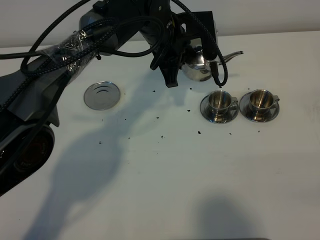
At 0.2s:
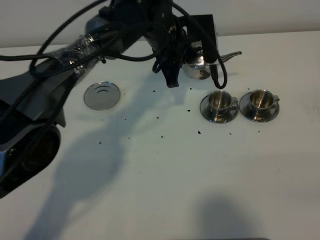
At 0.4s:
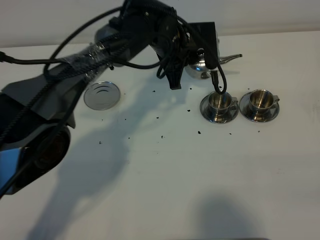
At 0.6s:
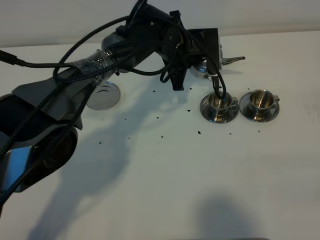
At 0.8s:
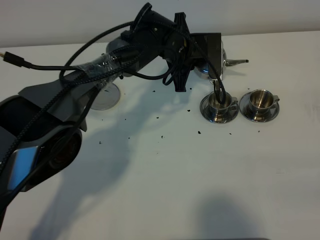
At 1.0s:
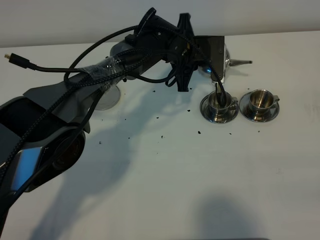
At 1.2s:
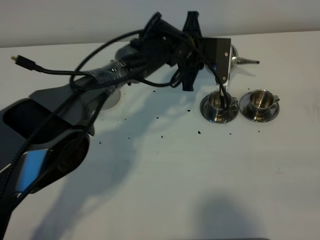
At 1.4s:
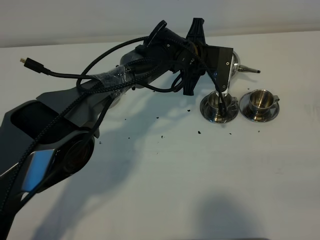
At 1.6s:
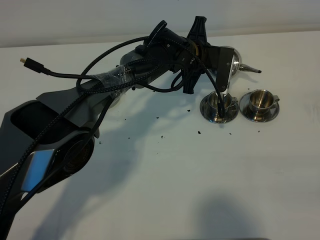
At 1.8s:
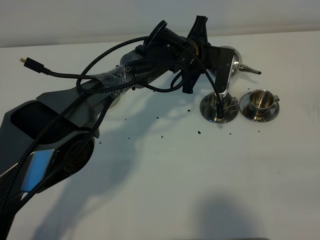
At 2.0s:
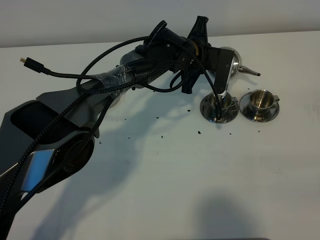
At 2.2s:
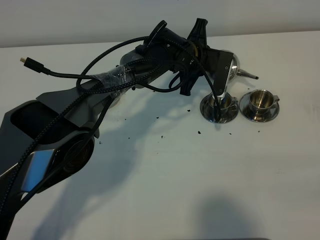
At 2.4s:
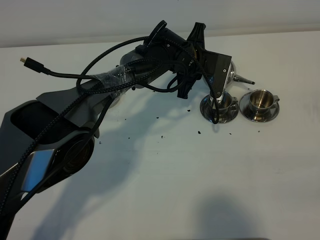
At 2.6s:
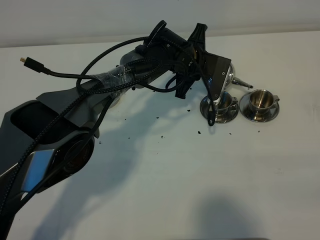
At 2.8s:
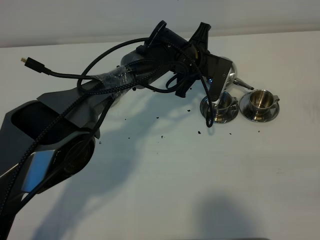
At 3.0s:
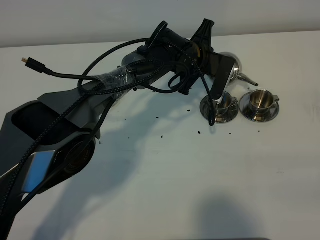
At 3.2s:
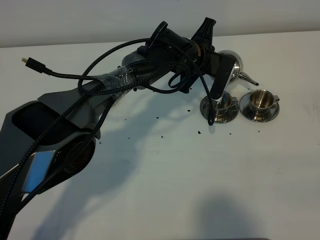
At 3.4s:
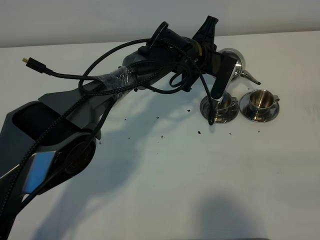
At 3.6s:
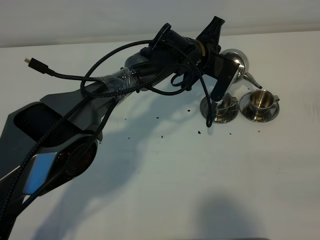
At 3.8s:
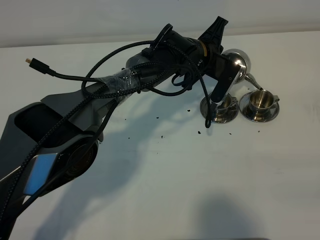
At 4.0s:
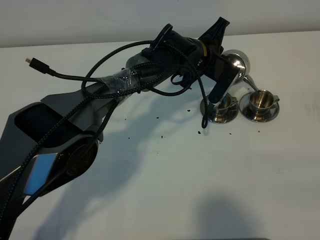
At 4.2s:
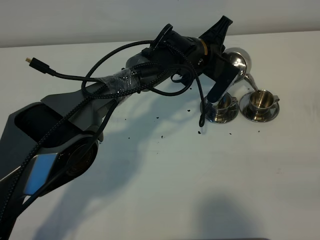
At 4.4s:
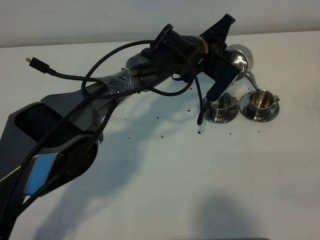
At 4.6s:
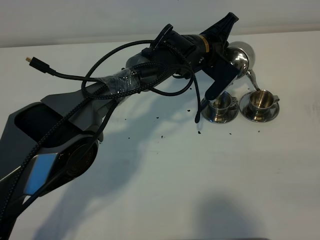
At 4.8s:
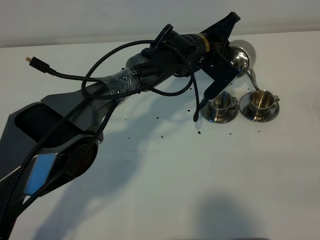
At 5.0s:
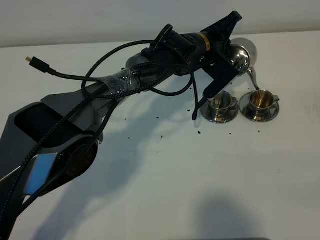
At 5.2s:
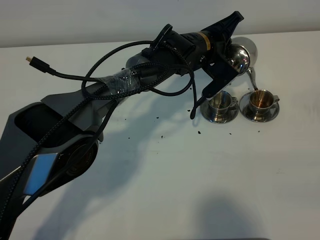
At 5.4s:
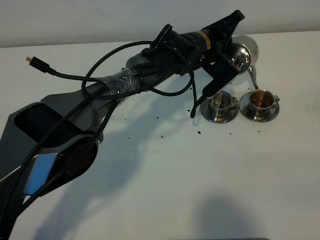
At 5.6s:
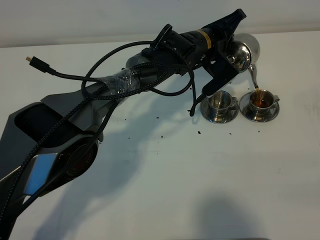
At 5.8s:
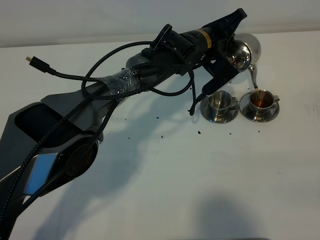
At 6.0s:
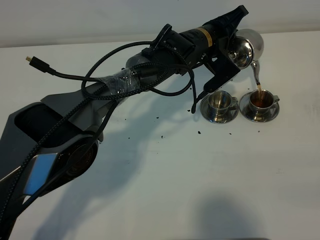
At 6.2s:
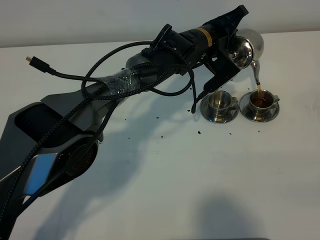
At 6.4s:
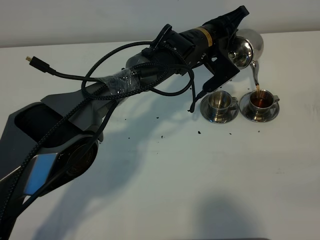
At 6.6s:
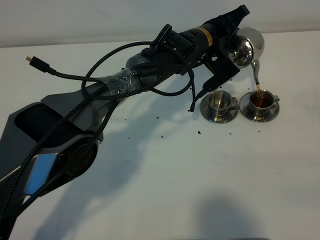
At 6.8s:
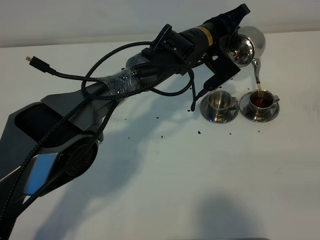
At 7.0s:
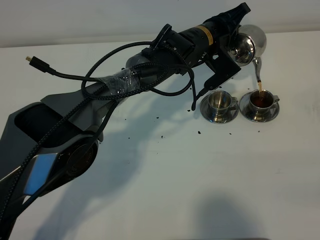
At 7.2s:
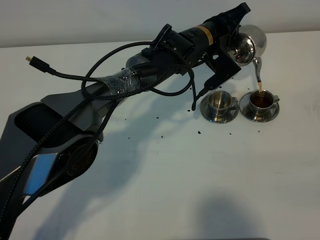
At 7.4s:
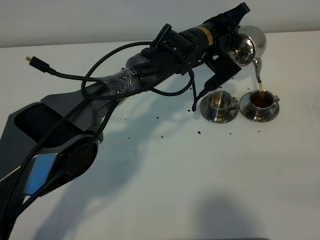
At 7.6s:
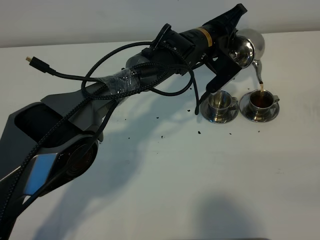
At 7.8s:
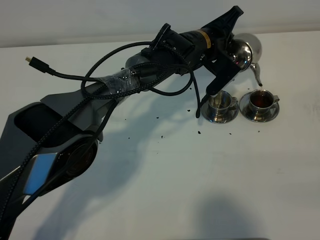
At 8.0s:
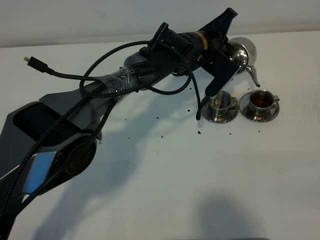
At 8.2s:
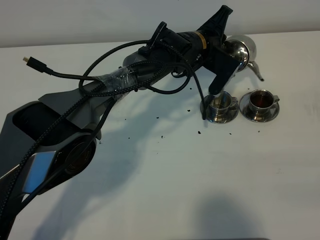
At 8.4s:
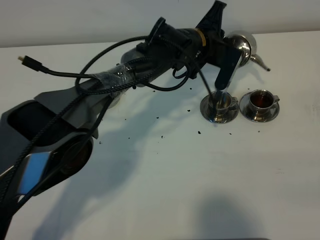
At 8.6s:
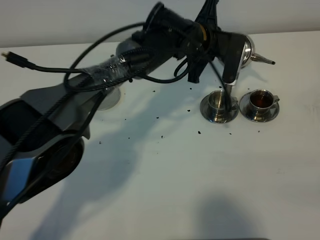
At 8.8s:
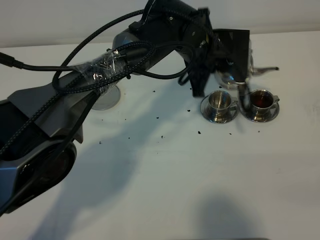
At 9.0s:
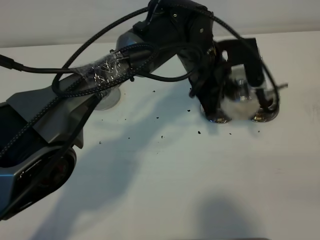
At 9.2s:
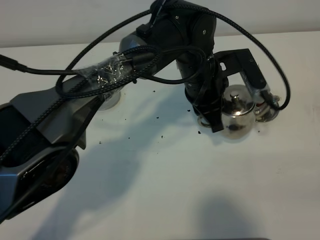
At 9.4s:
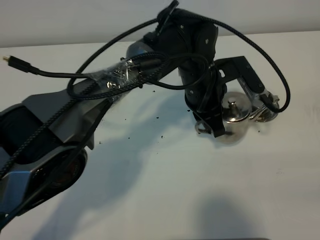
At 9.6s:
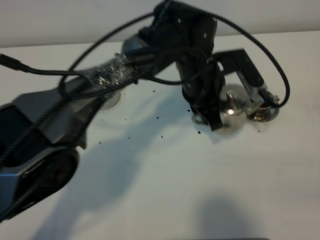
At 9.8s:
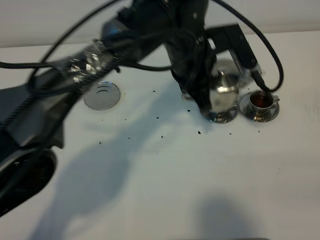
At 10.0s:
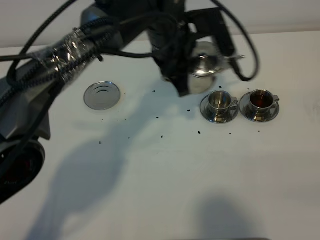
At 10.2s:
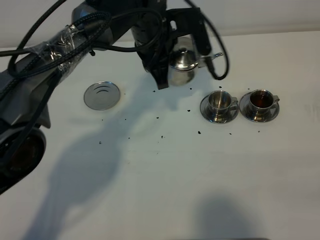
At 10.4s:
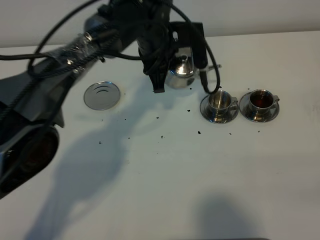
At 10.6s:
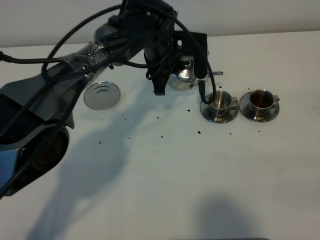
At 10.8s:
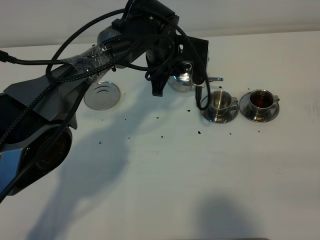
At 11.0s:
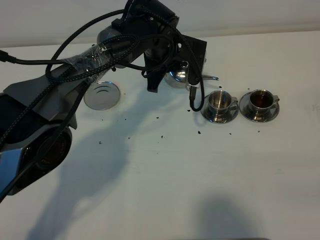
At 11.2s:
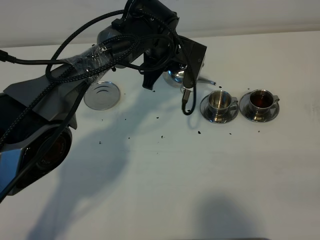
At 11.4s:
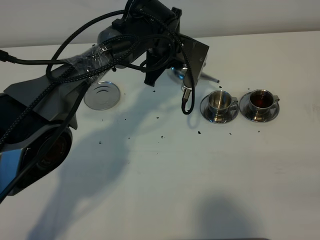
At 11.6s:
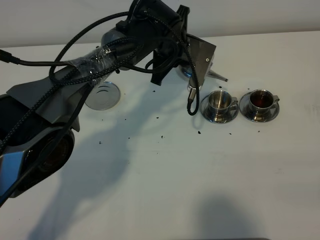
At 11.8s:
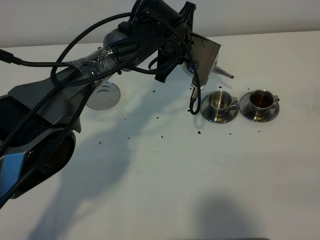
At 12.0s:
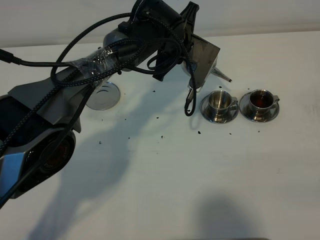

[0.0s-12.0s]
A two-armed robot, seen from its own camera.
Task of the whole recording: grasp the stainless steel teapot and pour the tea into the two stainless steel teacups one by one, put the stainless steel teapot back in its original place.
Step, 0.0s to 8.4s: Pour tea into the teacup with the left gripper.
0.0s to 1.6s: The left gripper heads downward, covering about 10 cm.
1.6s to 3.0s: The grippers make only small movements.
4.4s to 6.0s: The grippers stay close to where they were, moving slightly.
6.0s to 7.6s: The grippers move only a little.
7.6s to 9.0s: The left gripper travels backward by approximately 10 cm.
9.0s to 10.4s: The left gripper shifts roughly 10 cm to the left and forward.

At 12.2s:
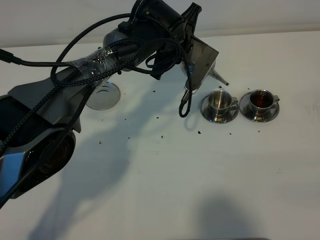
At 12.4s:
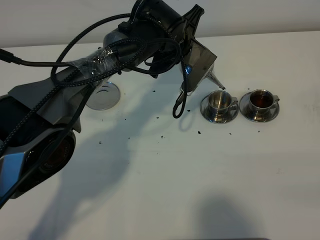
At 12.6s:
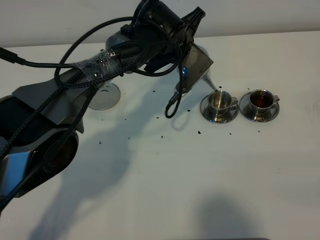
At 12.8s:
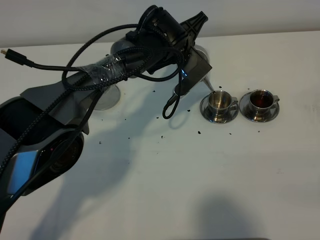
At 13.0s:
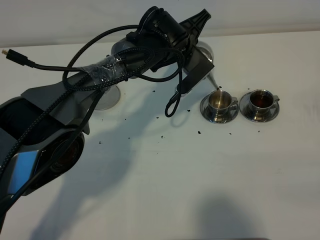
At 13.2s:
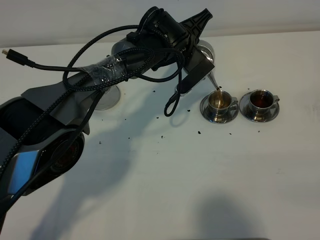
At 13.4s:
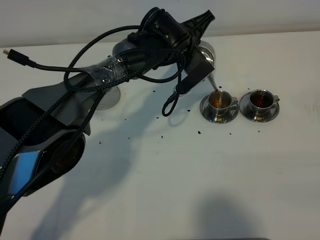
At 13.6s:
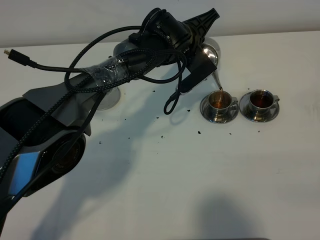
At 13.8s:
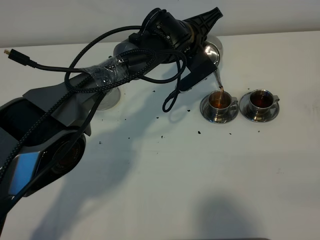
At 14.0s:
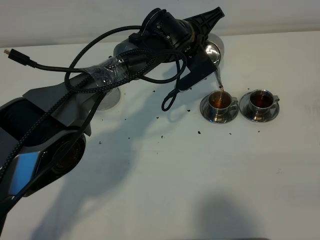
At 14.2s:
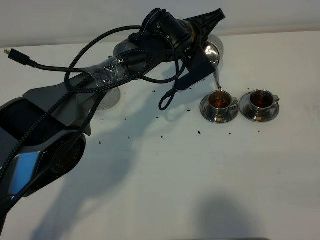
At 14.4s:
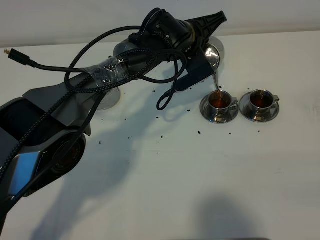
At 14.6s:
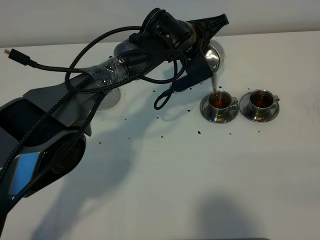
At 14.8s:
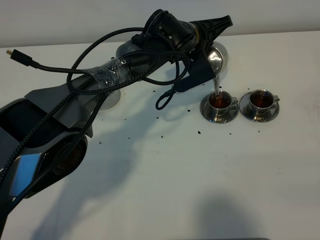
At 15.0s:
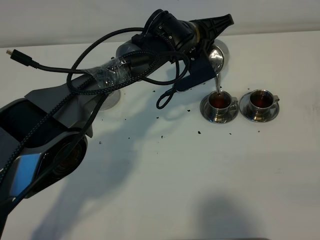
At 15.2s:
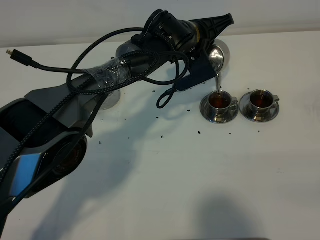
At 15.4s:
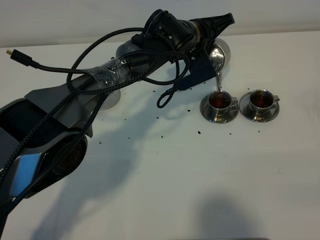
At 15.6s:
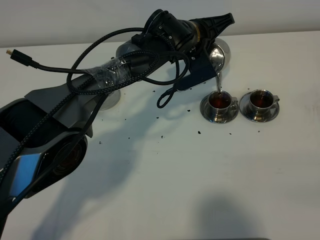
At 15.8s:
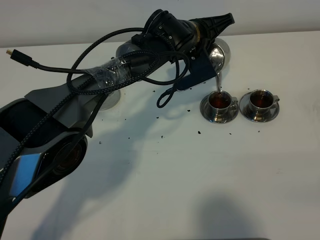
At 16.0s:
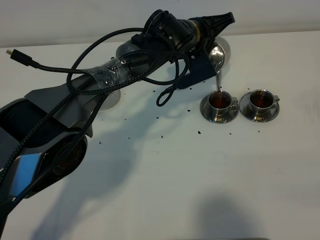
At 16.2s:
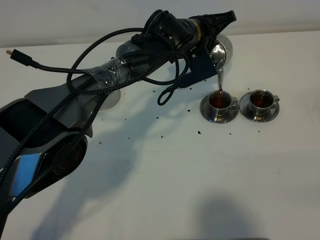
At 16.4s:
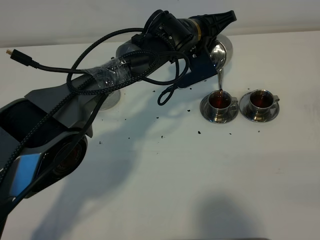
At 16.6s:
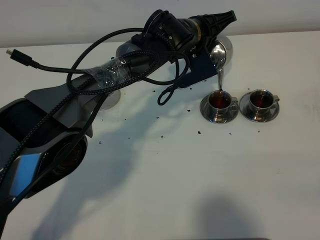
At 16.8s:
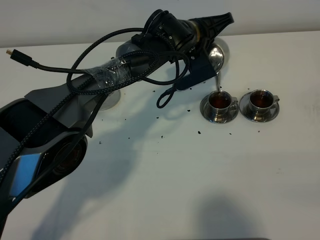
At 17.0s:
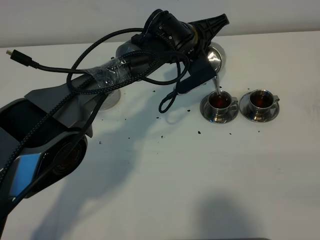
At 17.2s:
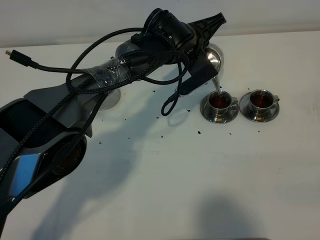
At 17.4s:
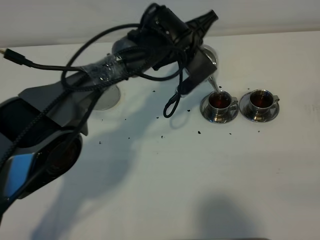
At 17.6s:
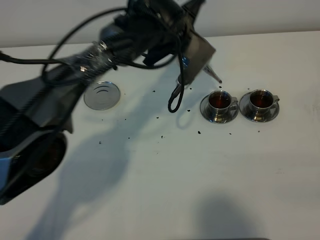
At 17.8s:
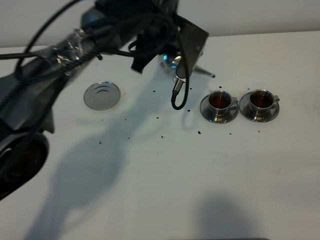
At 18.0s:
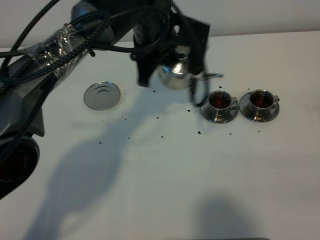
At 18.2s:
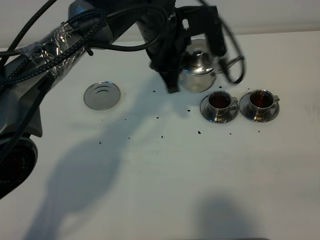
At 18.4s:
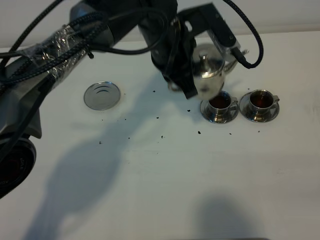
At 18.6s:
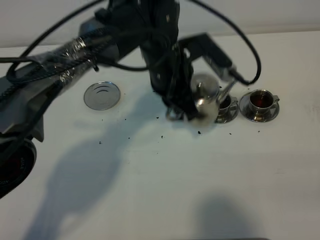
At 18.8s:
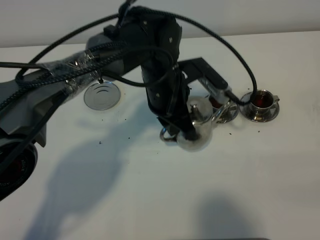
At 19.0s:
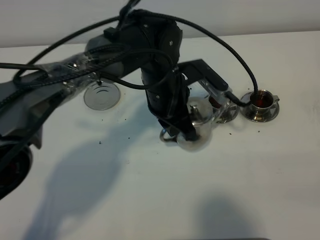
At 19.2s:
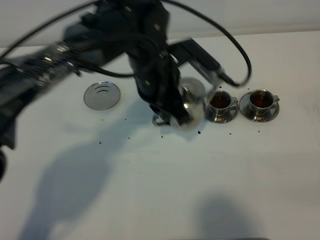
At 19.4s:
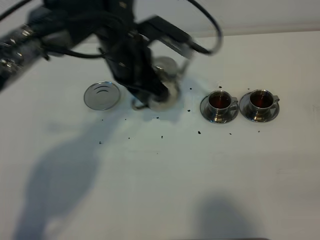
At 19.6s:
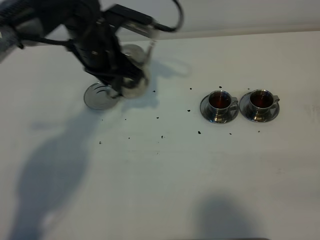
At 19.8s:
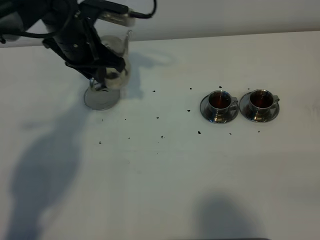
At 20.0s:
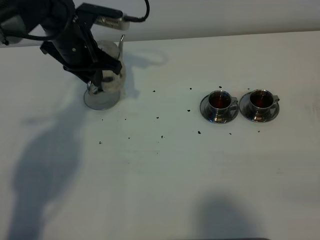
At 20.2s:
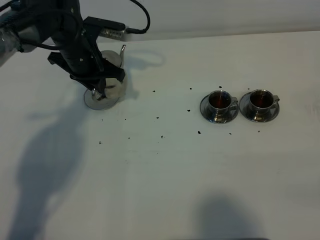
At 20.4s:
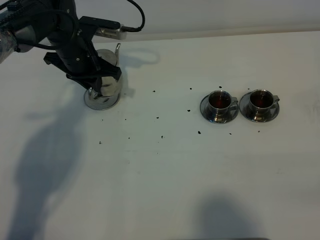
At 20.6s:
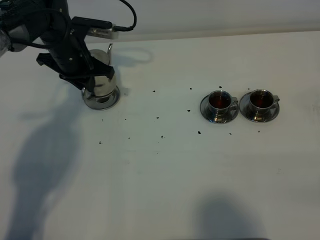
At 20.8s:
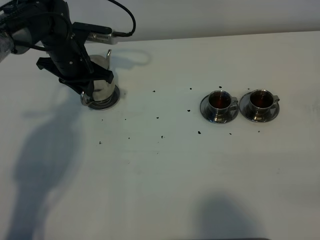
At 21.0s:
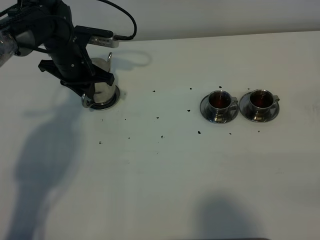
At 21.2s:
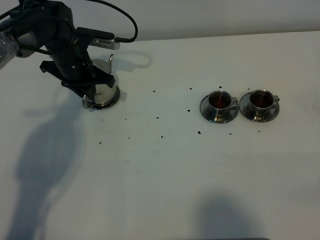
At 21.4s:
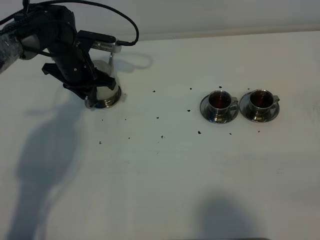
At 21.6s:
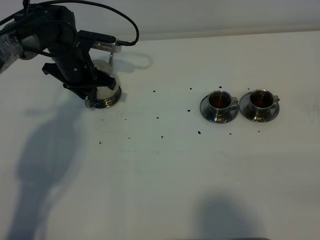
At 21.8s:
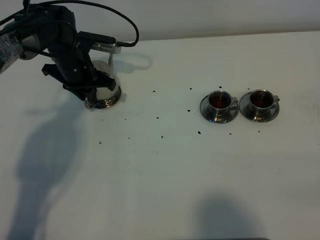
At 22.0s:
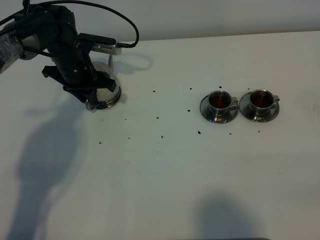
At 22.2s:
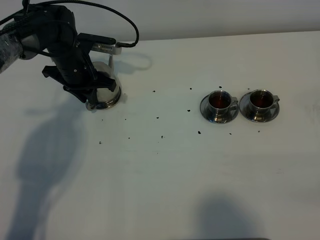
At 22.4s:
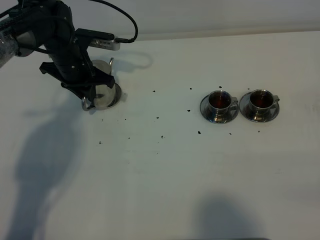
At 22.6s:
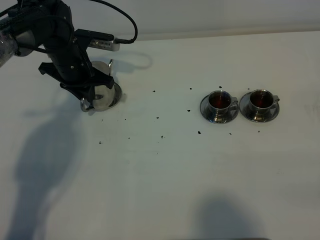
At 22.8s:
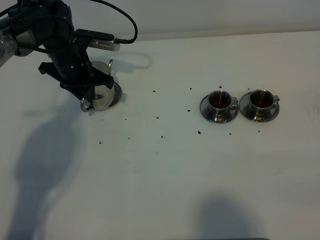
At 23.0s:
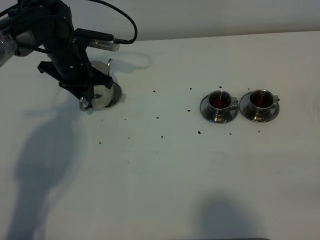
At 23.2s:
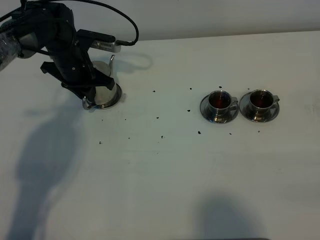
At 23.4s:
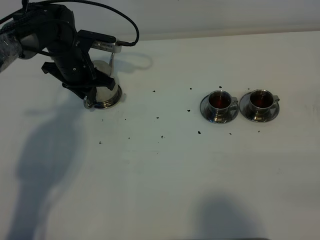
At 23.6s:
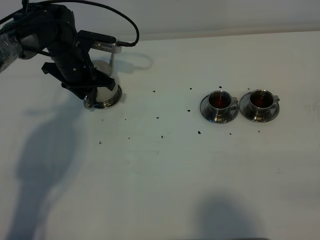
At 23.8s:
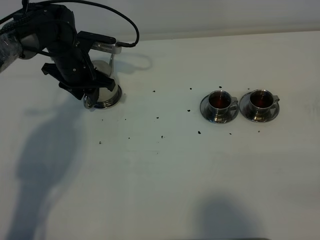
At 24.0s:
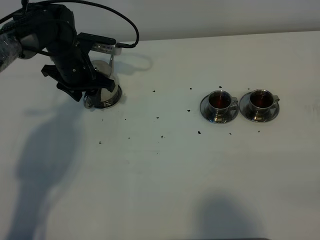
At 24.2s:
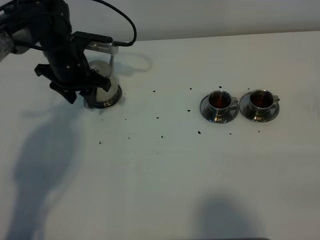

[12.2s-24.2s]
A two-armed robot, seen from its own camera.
Task of the whole recording: grasp the stainless steel teapot and pour the tea into the two stainless steel teacups one by one, put the stainless steel teapot back in its original place.
Step, 12.2s to 18.0s: Pour tea into the teacup with the left gripper.
13.8s to 15.2s: The grippers stay close to where they were, moving slightly.
15.2s to 16.6s: Both grippers stay about where they are.
16.6s to 18.2s: The left gripper is displaced upward and backward by roughly 10 cm.
18.2s to 19.8s: The left gripper shifts approximately 15 cm to the left.
19.8s to 21.2s: The left gripper is displaced downward by some 10 cm.
21.2s to 22.6s: Neither gripper changes place.
22.6s to 24.2s: The left gripper opens up.
